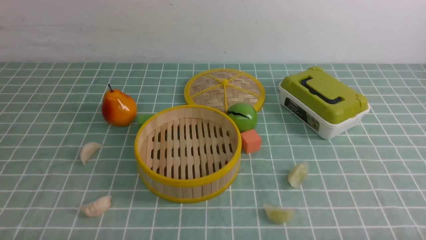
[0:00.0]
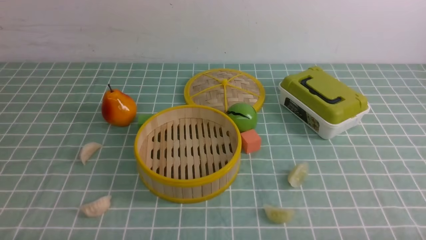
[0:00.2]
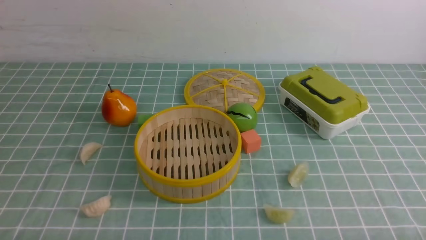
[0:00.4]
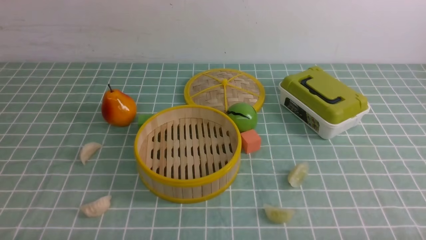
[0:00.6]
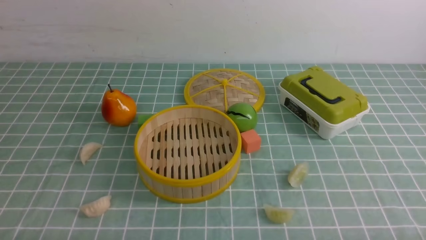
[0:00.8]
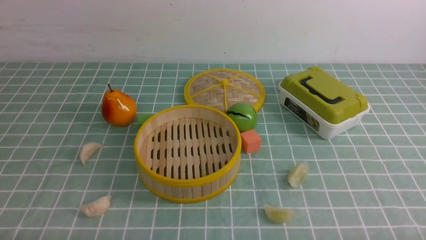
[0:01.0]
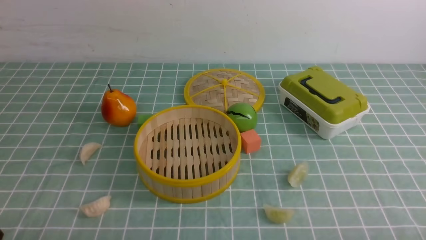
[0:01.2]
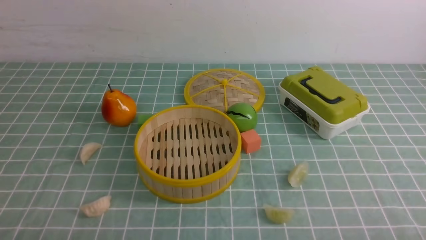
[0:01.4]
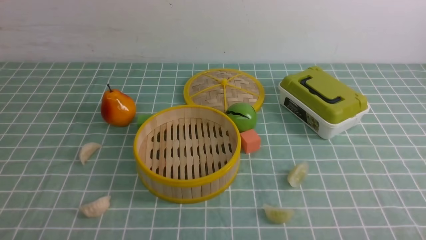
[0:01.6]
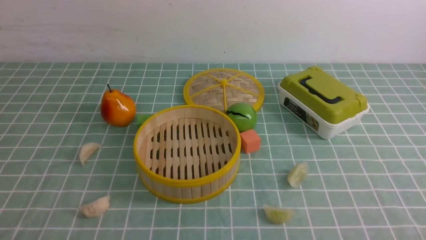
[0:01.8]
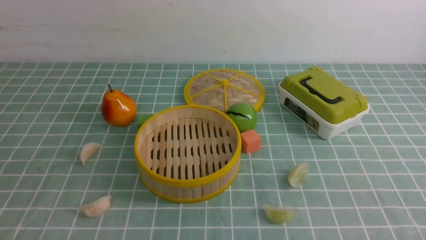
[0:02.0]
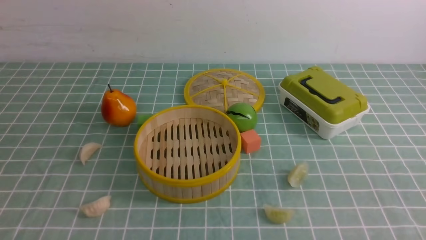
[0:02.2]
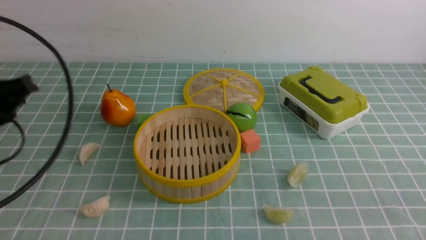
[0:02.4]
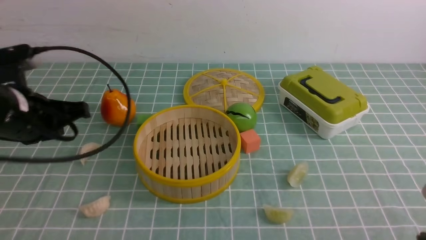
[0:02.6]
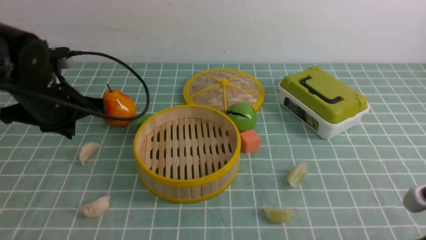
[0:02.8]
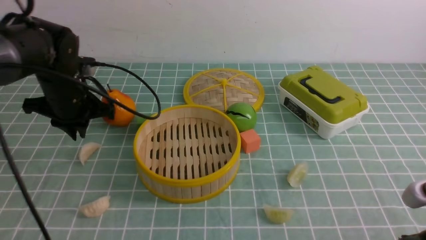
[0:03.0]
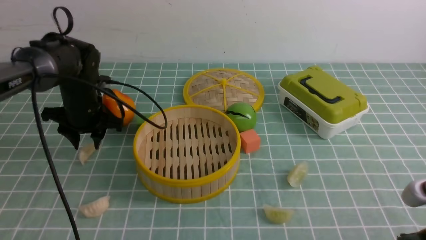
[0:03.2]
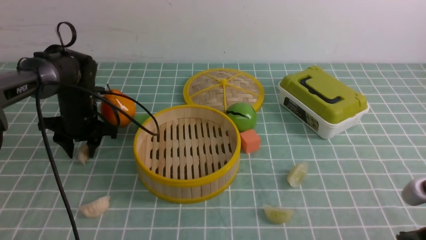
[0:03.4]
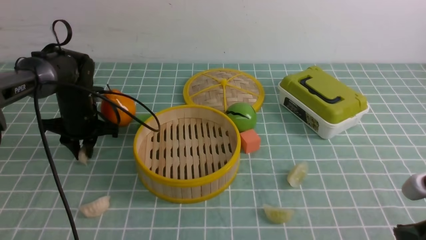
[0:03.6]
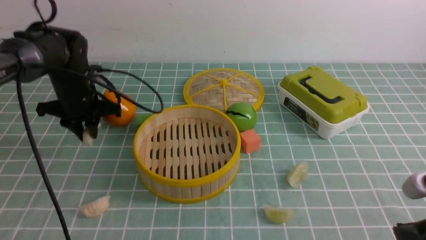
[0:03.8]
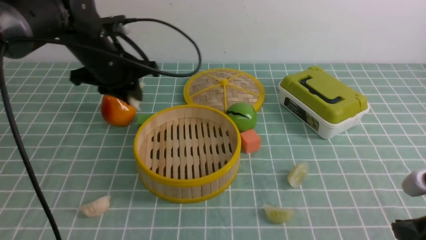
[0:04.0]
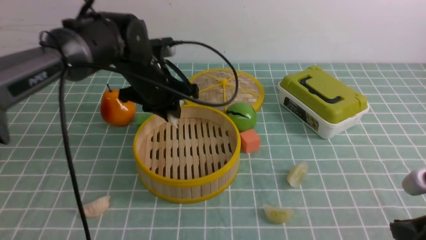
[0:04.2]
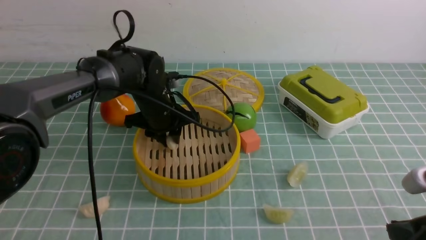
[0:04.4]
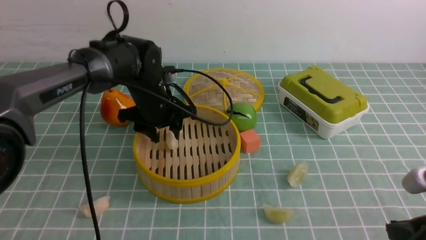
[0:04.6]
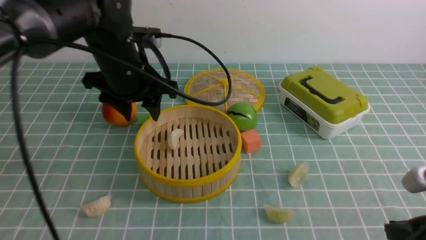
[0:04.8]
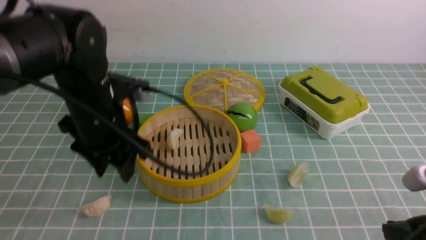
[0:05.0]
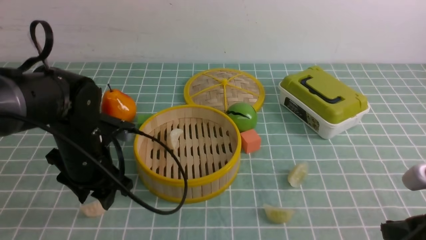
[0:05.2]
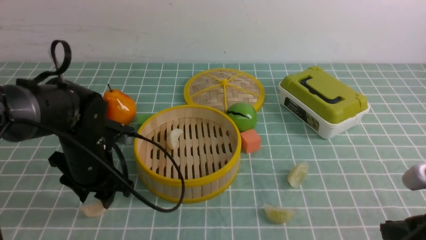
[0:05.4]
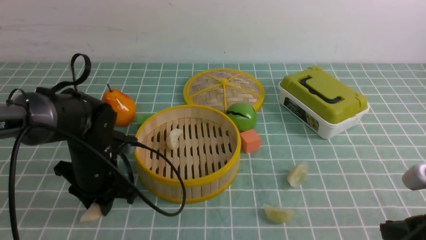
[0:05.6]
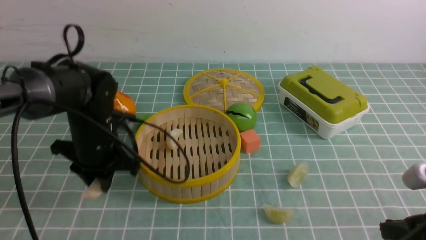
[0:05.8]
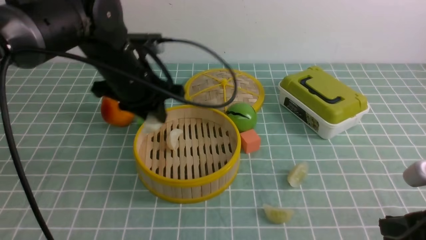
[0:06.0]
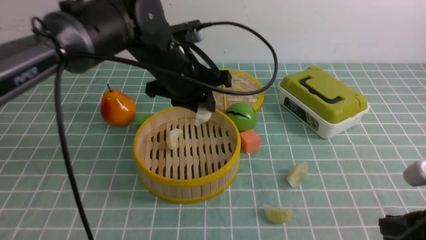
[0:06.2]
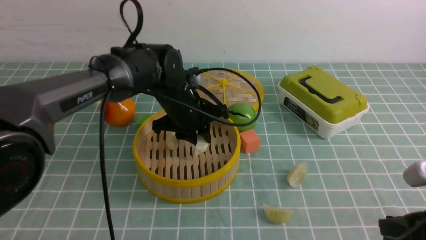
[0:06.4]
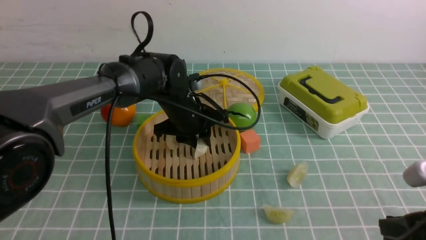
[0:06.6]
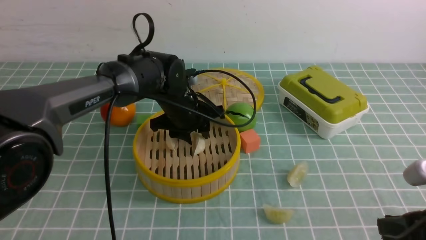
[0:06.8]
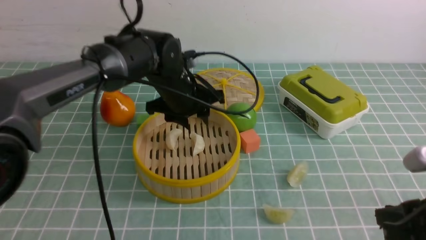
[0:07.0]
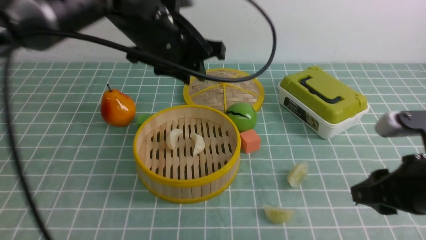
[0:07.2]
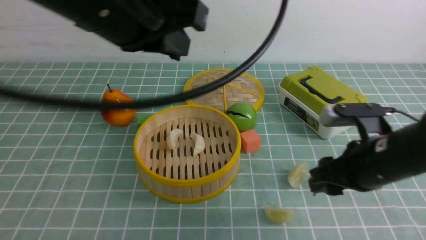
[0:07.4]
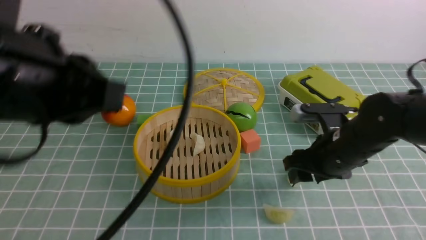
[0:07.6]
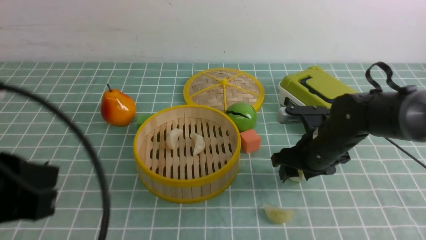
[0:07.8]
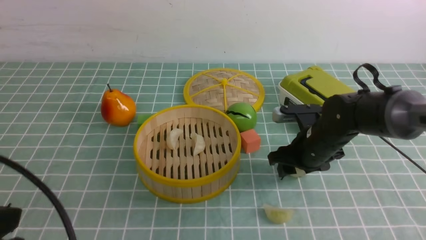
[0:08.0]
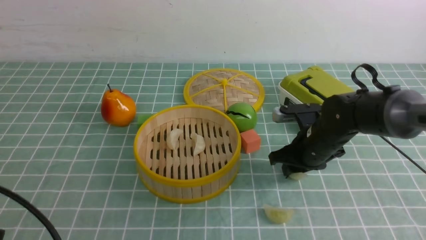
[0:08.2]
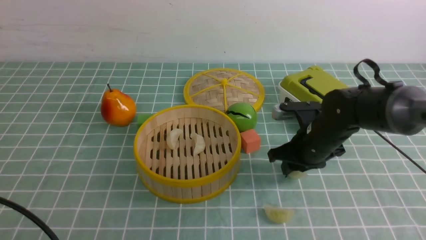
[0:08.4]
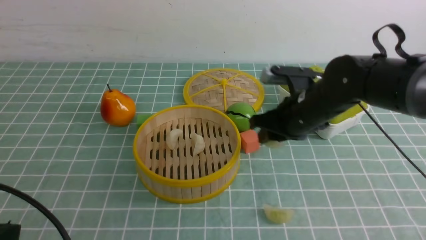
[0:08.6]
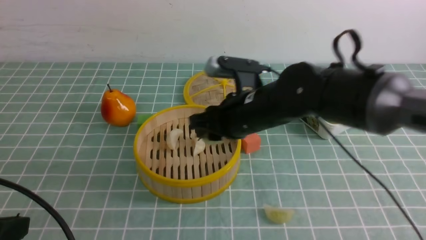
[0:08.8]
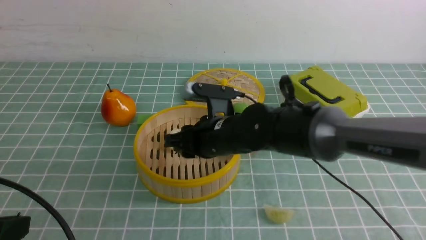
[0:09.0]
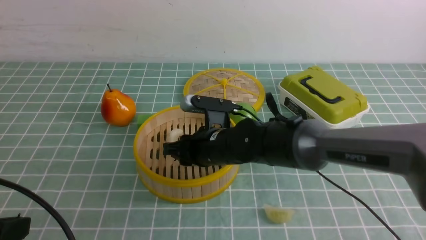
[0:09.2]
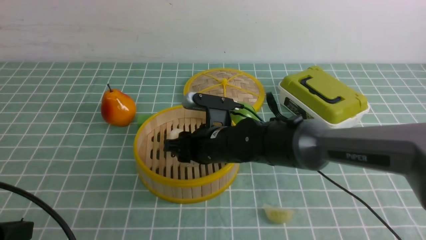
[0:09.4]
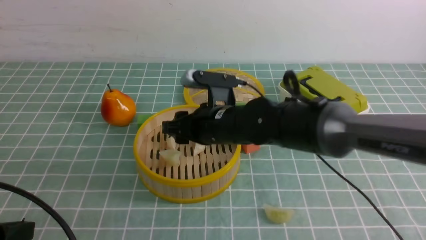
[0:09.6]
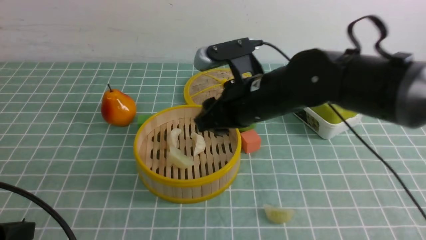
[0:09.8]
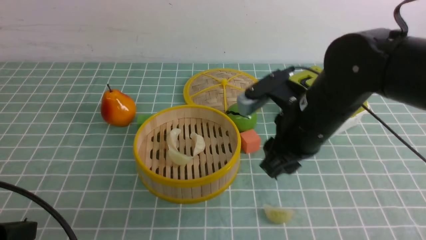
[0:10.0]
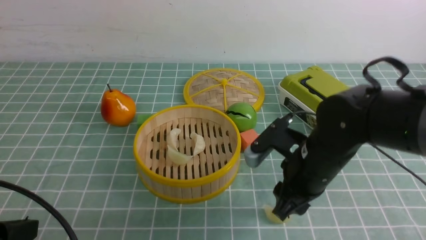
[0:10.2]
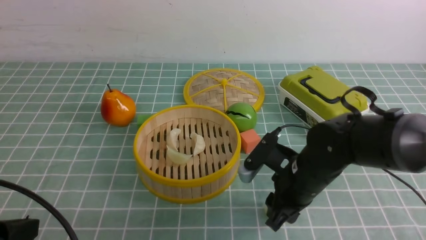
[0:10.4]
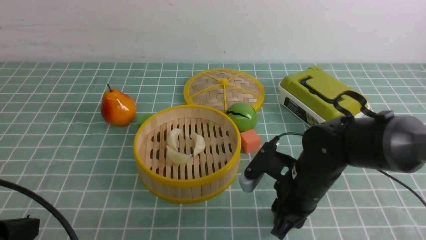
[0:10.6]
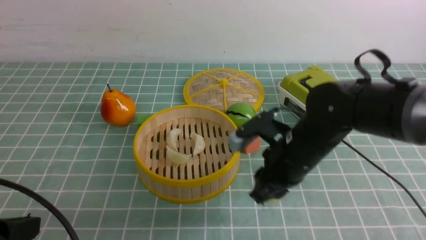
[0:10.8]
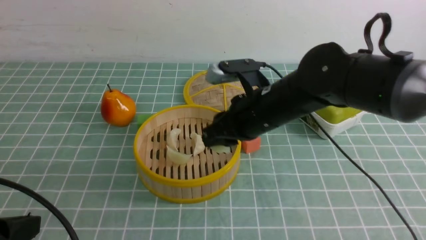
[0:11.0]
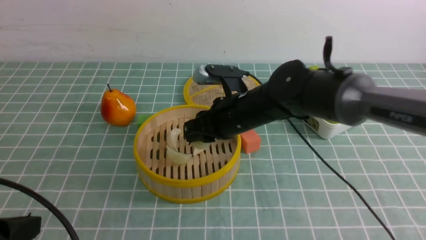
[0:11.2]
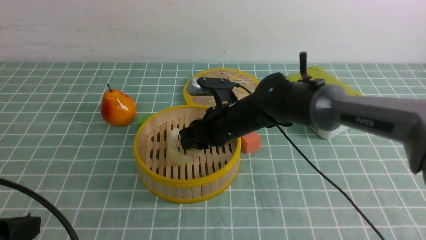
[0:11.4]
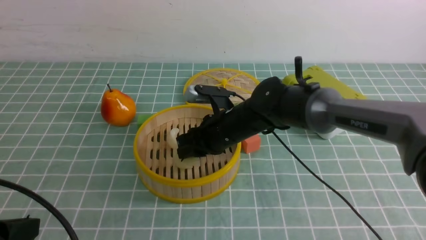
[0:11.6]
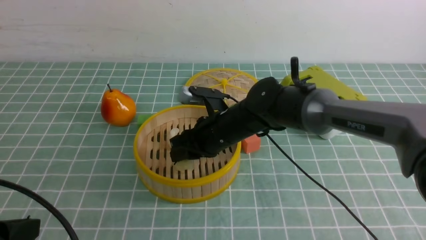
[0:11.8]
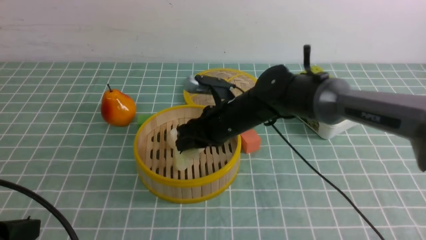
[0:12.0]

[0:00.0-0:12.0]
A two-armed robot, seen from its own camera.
Task of the whole recording: put the dumplings into the steamer on the table with the blue tablecloth.
Step, 0:00.0 to 0:03.6: use the left arm to grab a dumpling.
Step, 0:03.8 to 0:04.6: use the left arm to put the dumpling into the steamer.
Step, 0:04.8 to 0:05.6: use the left arm to grab a dumpling.
Step, 0:05.8 to 0:07.0: use the left arm to put the dumpling into the steamer.
Step, 0:07.2 to 0:08.2: use the right arm to grab a dumpling.
Step, 0:08.4 to 0:09.6: use the right arm to put the dumpling into the steamer.
Step, 0:09.8 to 0:10.4: use the right arm to grab a dumpling.
0:01.6 to 0:03.0: The left gripper goes some 35 cm forward, and closes, then reopens; the right gripper heads forward, covering approximately 10 cm, and closes.
0:03.0 to 0:04.4: The left gripper travels to the right by approximately 15 cm.
0:04.4 to 0:06.0: The left gripper shifts approximately 10 cm backward and upward.
0:06.0 to 0:07.6: The left gripper heads backward and upward, covering roughly 25 cm, and closes up. The right gripper travels forward and to the left by approximately 20 cm, and opens.
0:07.6 to 0:09.0: The left gripper shifts about 15 cm downward, to the left and backward; the right gripper travels to the left by approximately 15 cm, and closes.
0:09.0 to 0:10.4: The right gripper travels to the right and backward by approximately 10 cm.
0:10.4 to 0:12.0: The right gripper goes roughly 15 cm forward and to the left.

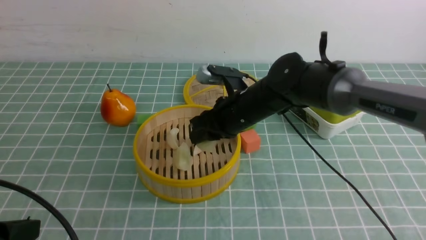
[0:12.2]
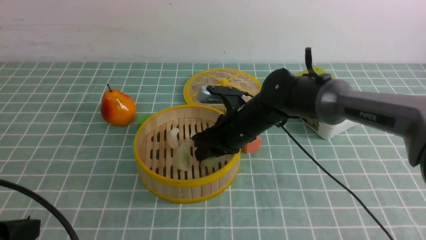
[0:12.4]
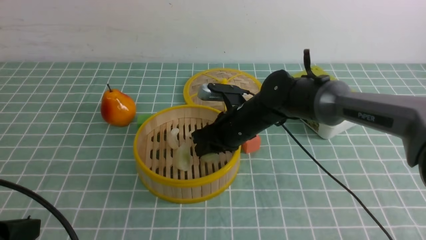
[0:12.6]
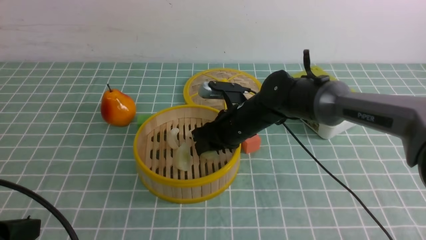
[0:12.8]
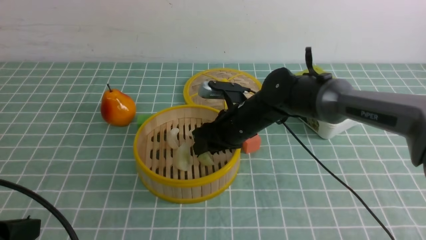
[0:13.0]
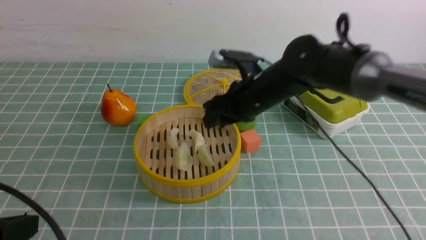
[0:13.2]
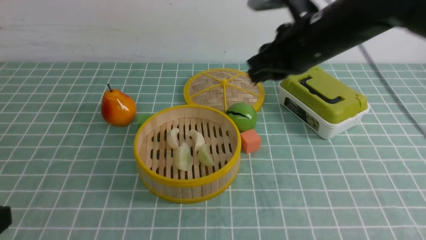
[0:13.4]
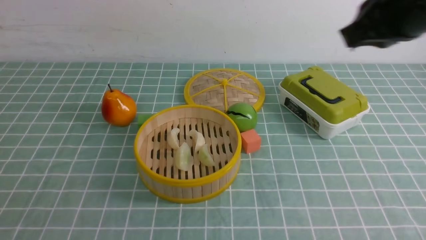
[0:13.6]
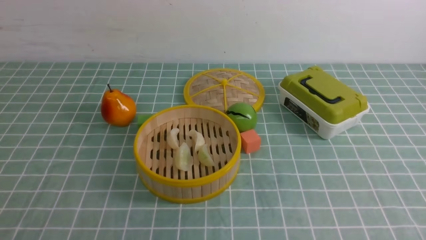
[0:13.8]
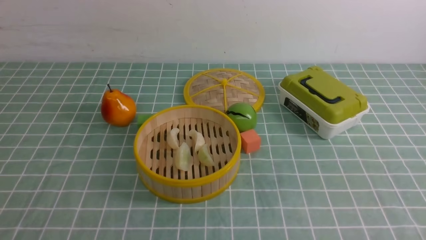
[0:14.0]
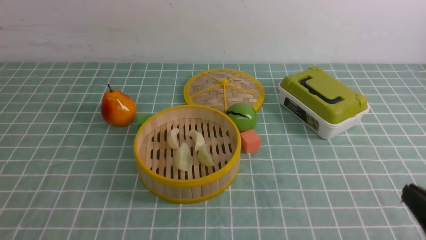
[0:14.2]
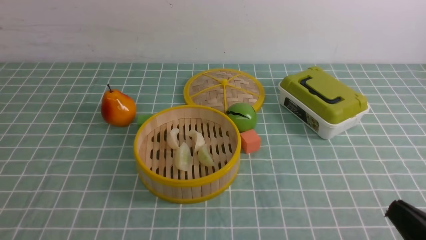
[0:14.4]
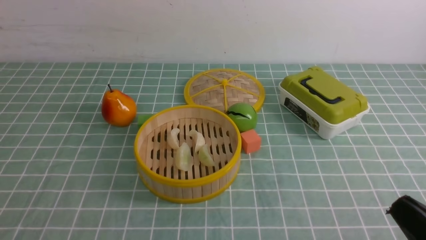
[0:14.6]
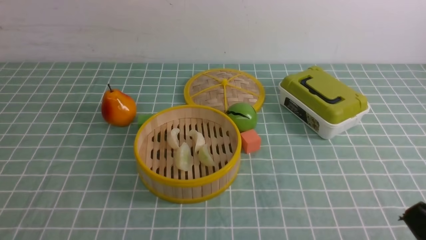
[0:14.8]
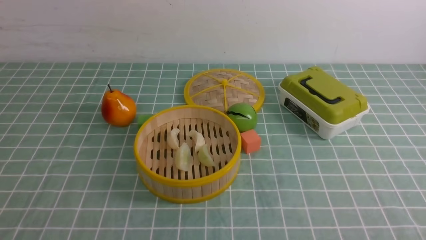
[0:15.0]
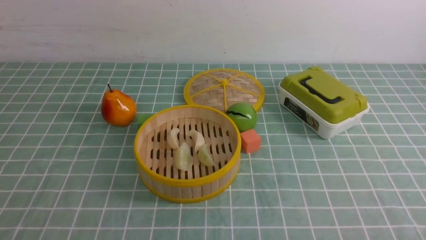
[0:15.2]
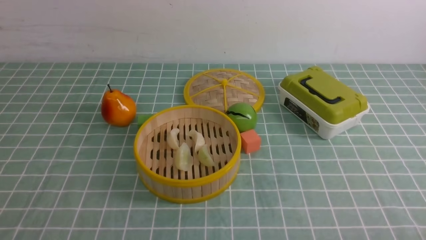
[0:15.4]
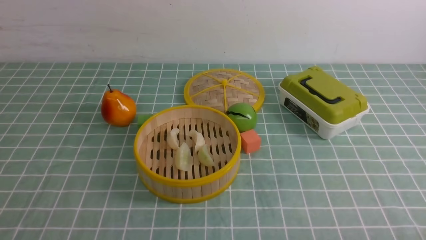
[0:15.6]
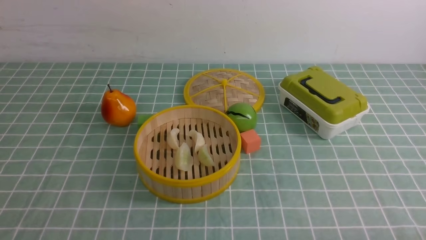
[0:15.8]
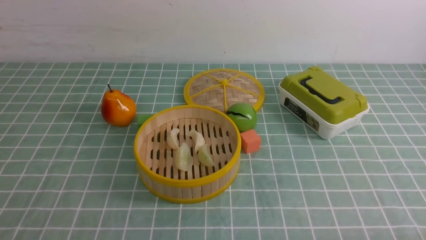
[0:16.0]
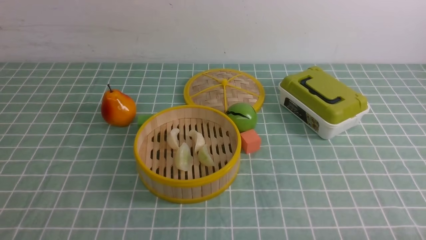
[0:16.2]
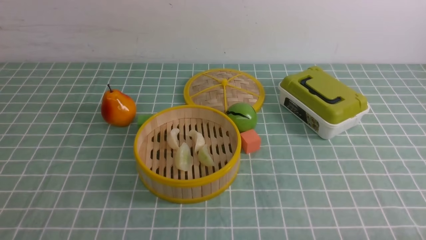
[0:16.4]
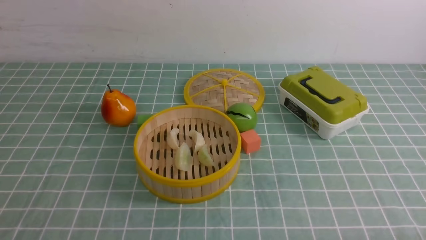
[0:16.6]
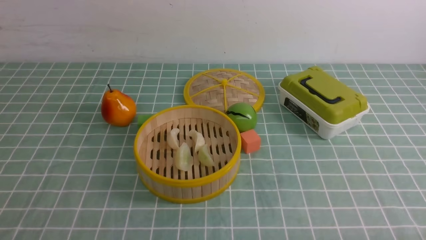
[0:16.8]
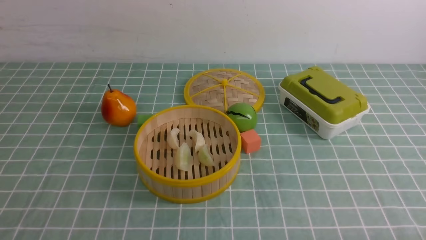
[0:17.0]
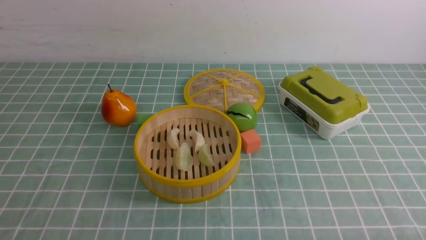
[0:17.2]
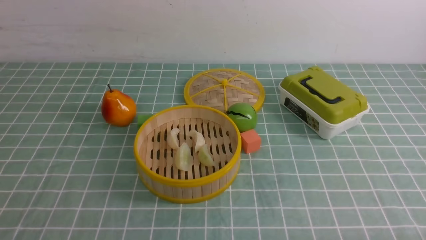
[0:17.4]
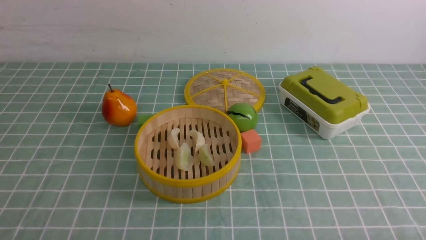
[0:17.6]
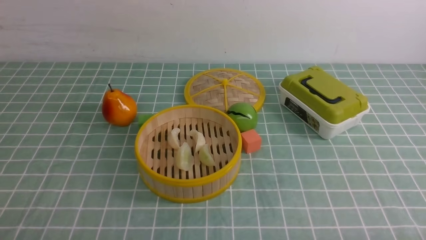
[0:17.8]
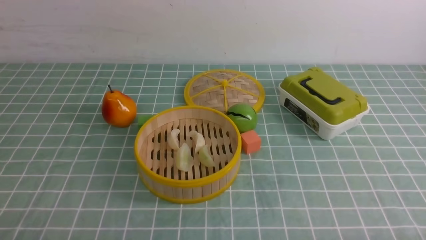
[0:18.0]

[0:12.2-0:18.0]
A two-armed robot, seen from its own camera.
Task of the whole recording: put the dumplings into the steamer on the table with the blue tablecloth.
0:12.2 to 0:13.6: The left gripper shifts by some 5 cm. Meanwhile the right gripper is displaced upward, to the right and backward by approximately 30 cm, and closes.
0:13.6 to 0:15.0: The right gripper travels backward and downward by about 30 cm.
